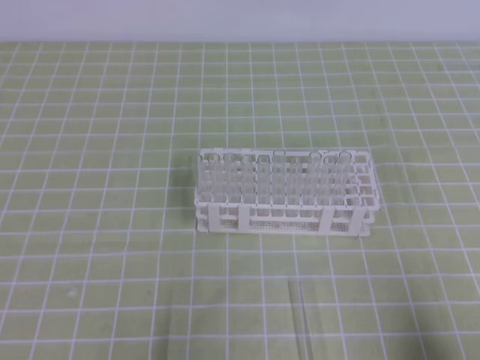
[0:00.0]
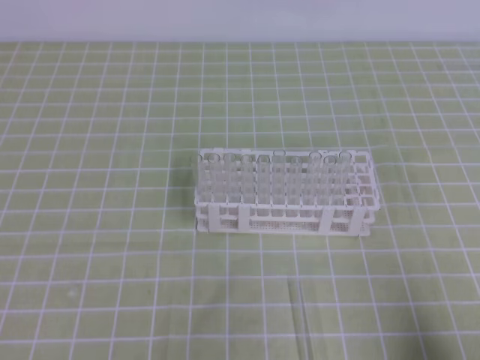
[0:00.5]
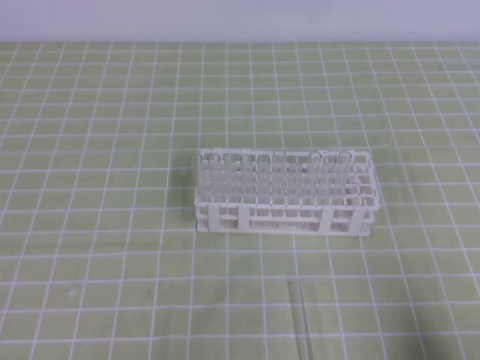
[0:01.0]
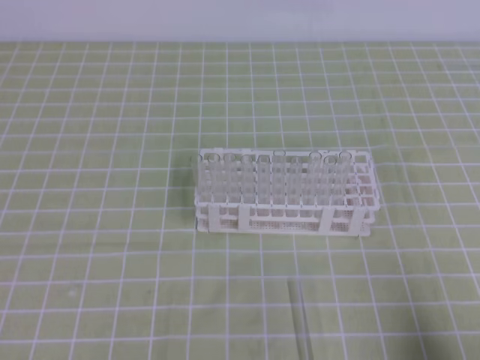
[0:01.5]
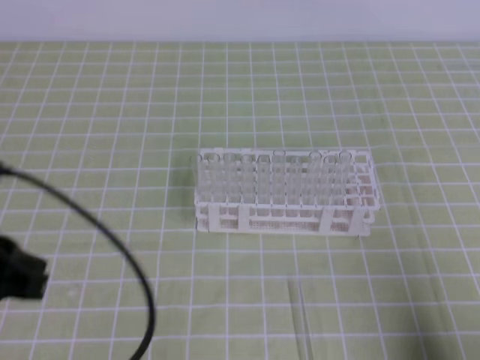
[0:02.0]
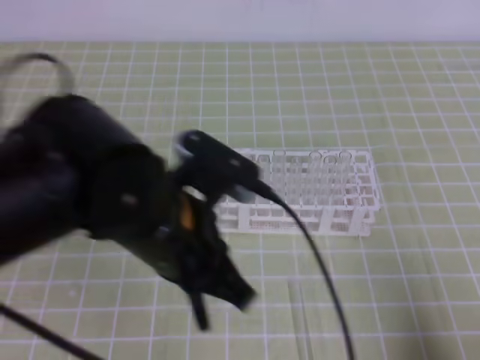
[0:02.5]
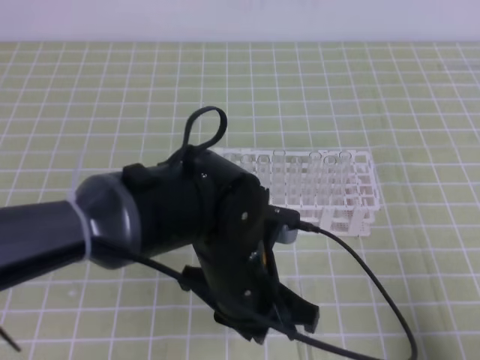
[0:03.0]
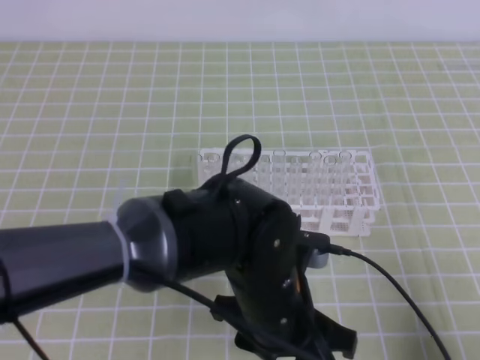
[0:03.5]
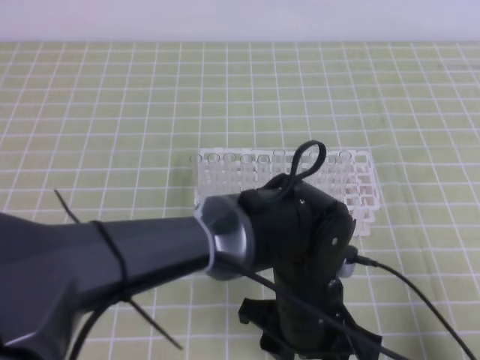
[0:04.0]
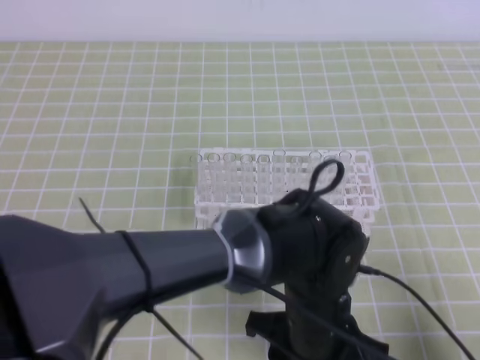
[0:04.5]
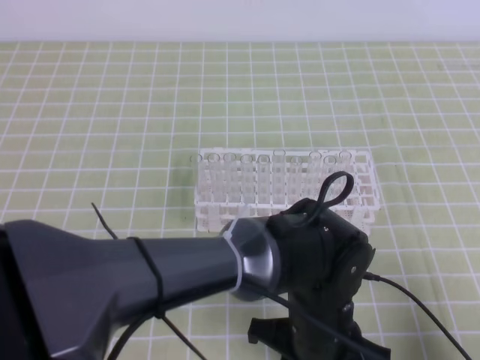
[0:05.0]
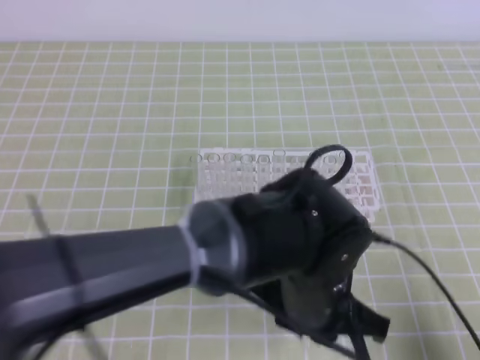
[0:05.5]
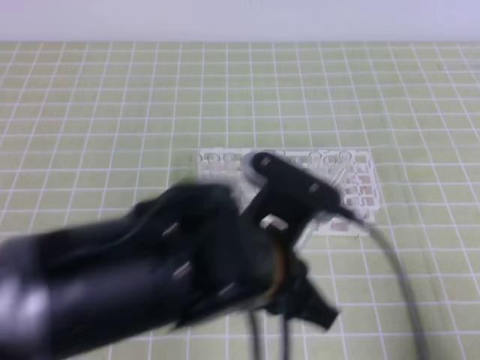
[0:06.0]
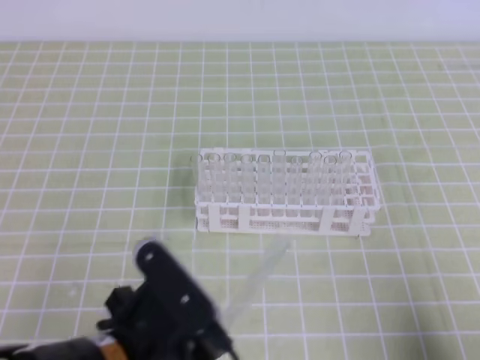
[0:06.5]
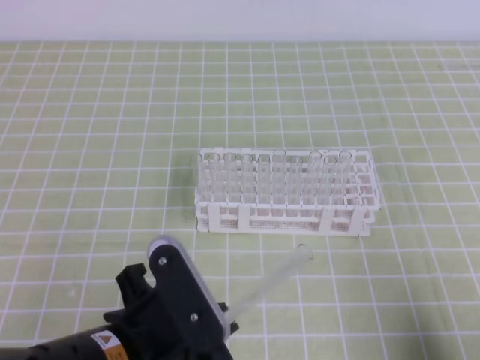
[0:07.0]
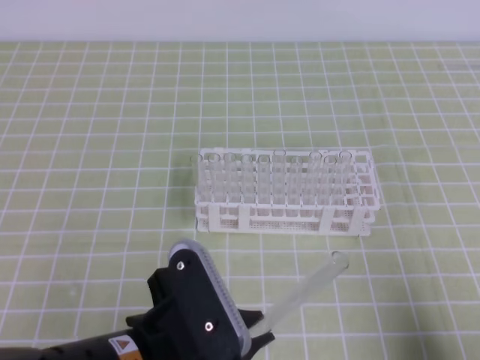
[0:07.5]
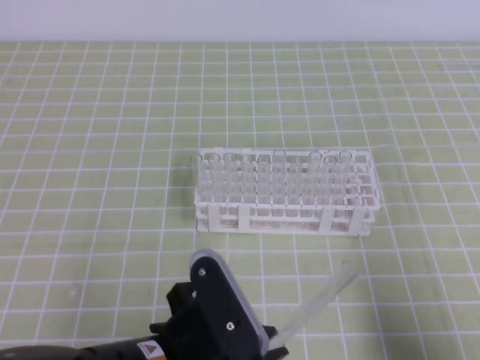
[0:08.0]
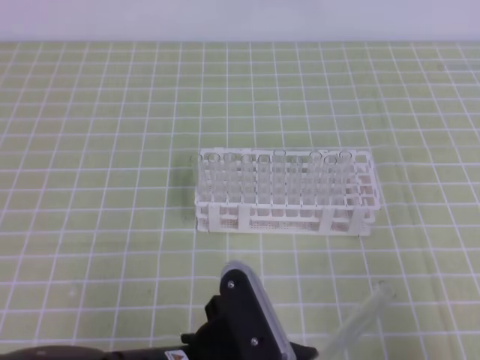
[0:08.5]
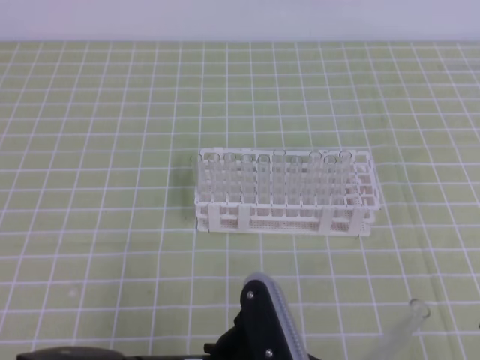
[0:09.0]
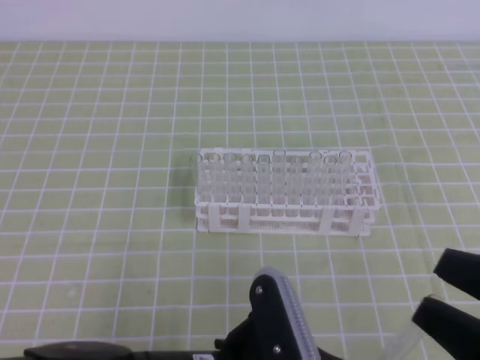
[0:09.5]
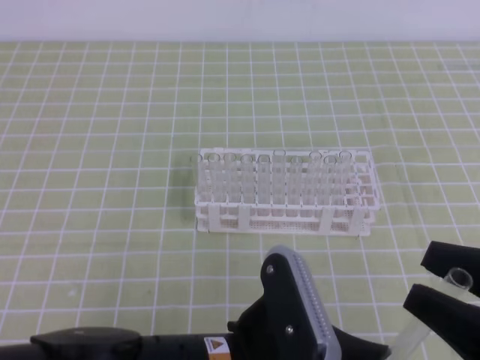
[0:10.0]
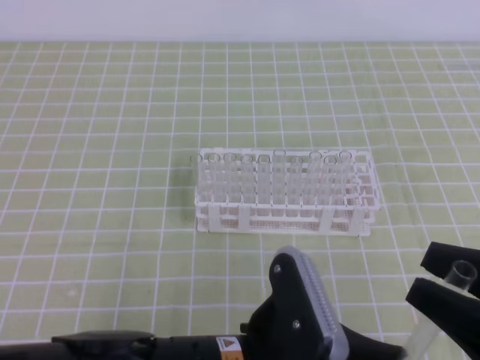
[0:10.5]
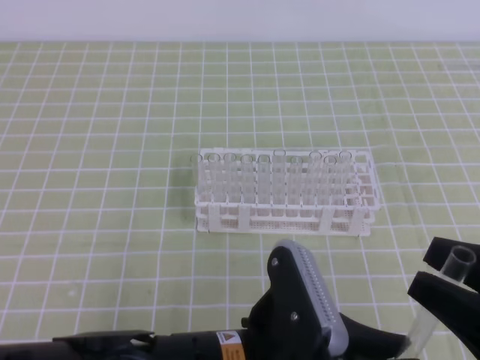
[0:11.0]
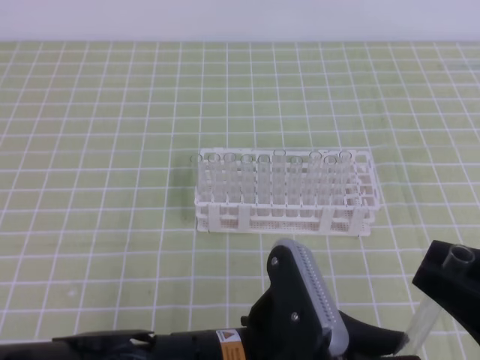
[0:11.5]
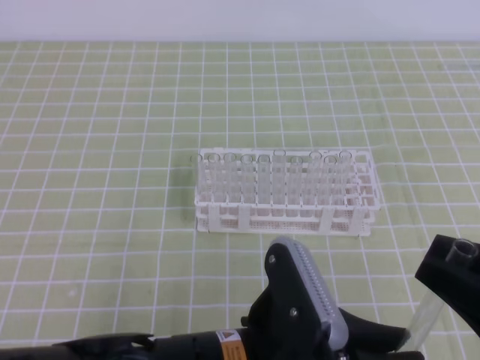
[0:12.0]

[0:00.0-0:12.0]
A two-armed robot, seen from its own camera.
0:00.0 to 0:02.0: The left gripper is displaced upward and forward by some 15 cm.
0:02.0 to 0:04.0: The left gripper travels to the right and downward by about 30 cm, and opens its fingers.
0:04.0 to 0:06.0: The left gripper travels upward and to the left by about 10 cm, and closes up.
0:06.0 to 0:08.0: The left gripper moves to the left, backward and downward, about 10 cm.
0:08.0 to 0:10.0: The right gripper goes some 10 cm upward and to the left, and opens up, while the left gripper goes about 5 cm to the right.
0:10.0 to 0:12.0: The right gripper closes its fingers.

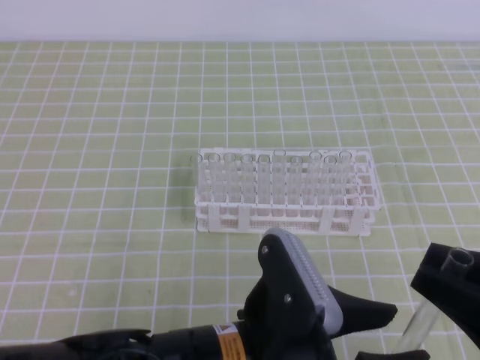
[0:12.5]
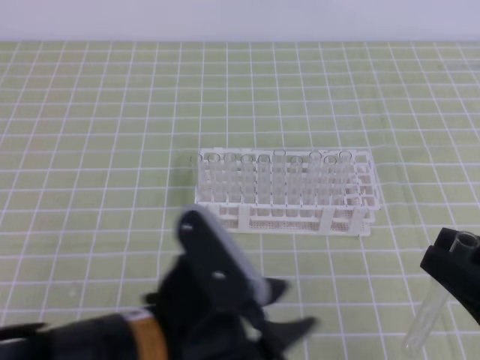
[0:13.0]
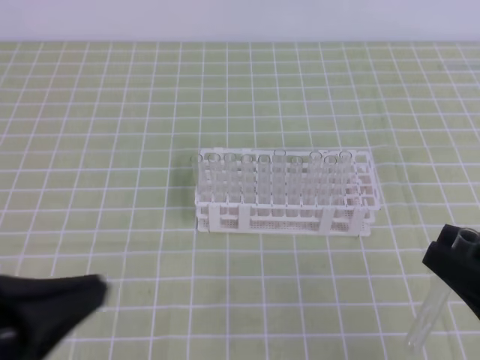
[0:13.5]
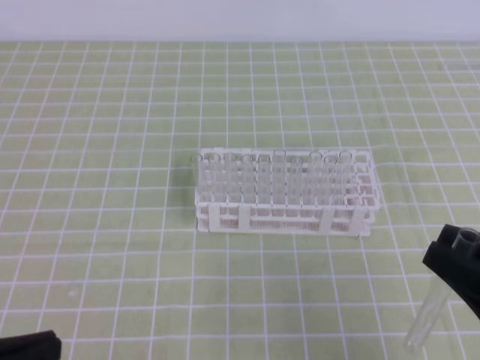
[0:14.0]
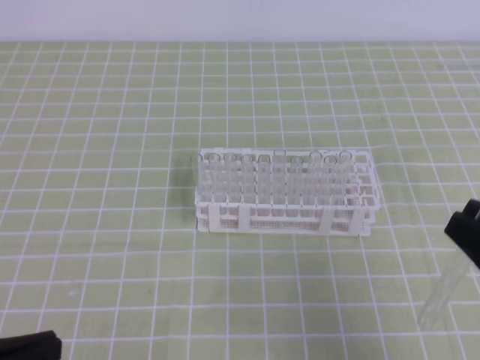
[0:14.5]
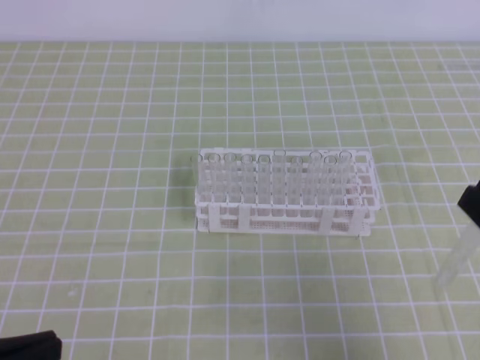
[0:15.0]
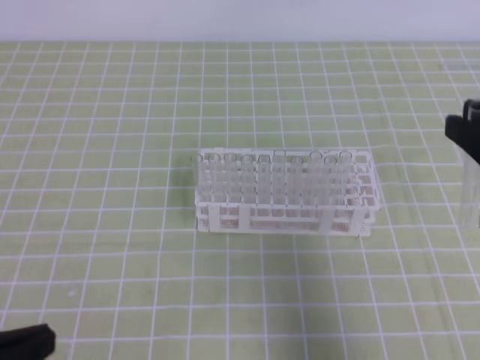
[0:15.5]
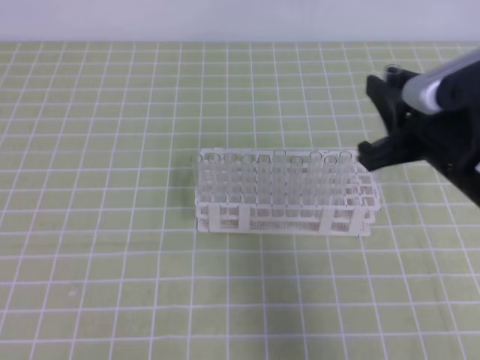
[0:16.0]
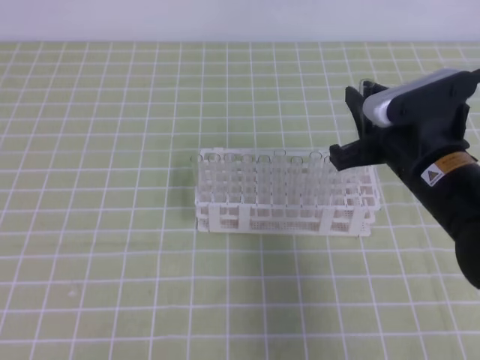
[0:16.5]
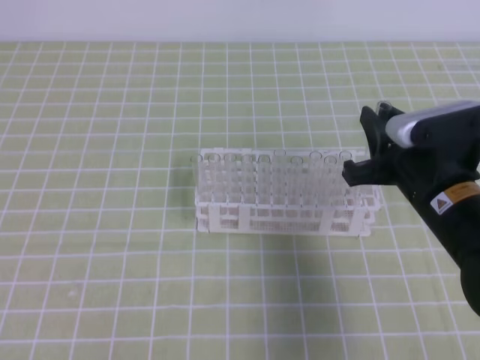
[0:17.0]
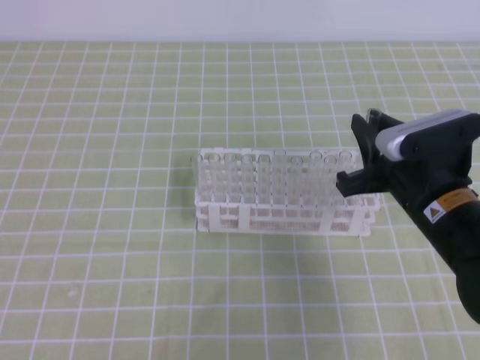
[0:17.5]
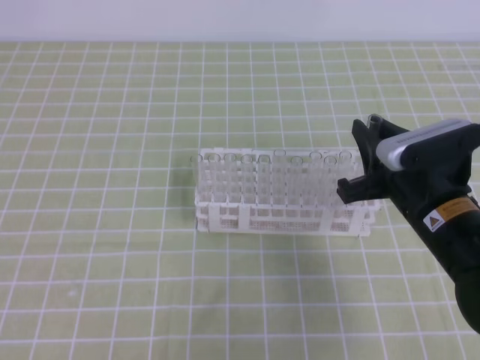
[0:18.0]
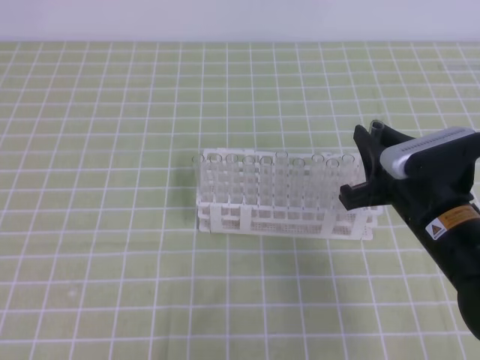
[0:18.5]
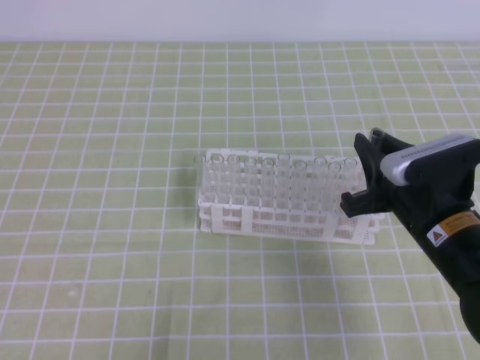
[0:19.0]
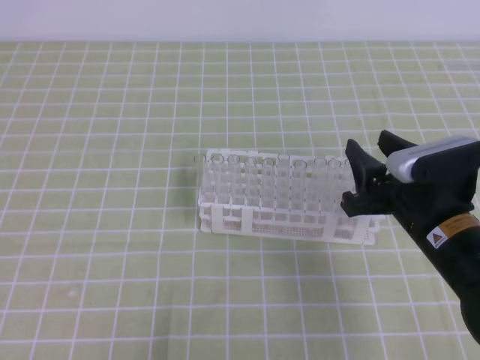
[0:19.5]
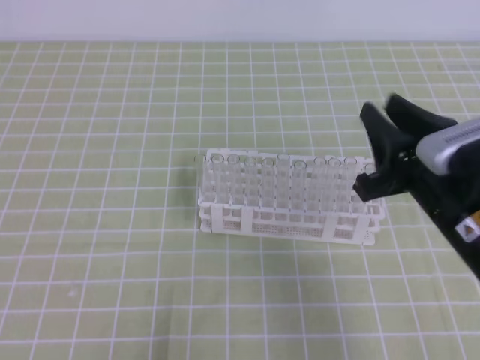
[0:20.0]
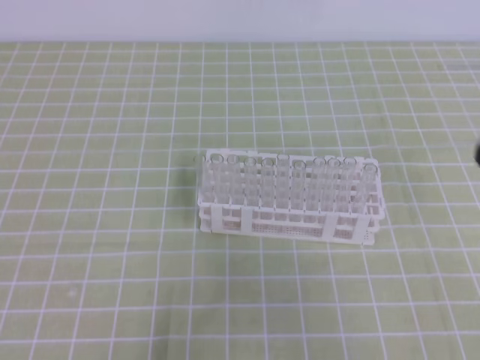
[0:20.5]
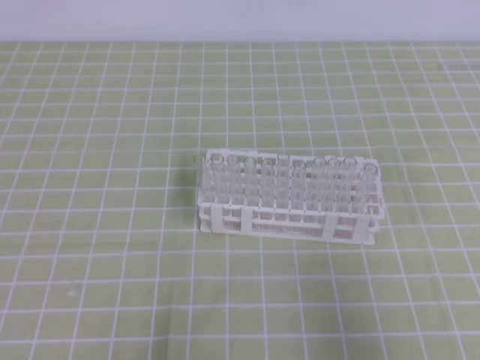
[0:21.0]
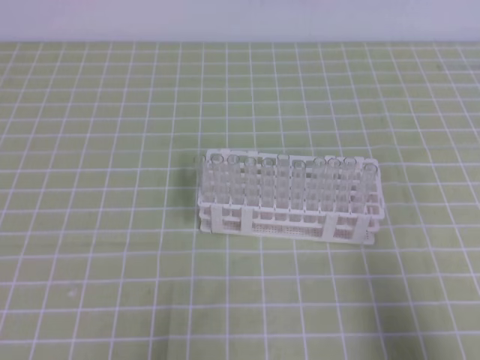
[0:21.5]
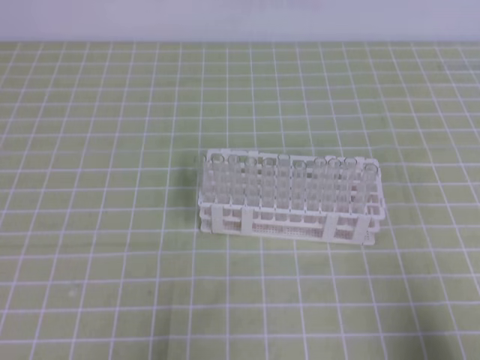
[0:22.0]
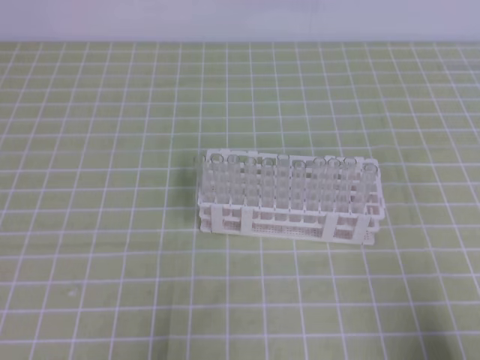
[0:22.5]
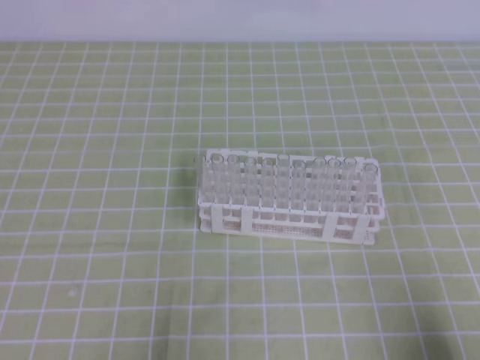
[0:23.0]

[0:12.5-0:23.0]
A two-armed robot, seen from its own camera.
0:12.5 to 0:14.5: The left gripper shifts about 25 cm to the left, and closes its fingers.
0:14.5 to 0:16.5: The right gripper goes approximately 20 cm forward and to the left.
0:16.5 to 0:19.0: The left gripper moves downward, roughly 10 cm. The right gripper travels downward by roughly 5 cm.
0:19.0 to 0:21.0: The right gripper heads backward, to the right and upward, covering roughly 25 cm, and opens and closes again.
0:21.0 to 0:23.0: The right gripper travels downward by some 10 cm.
